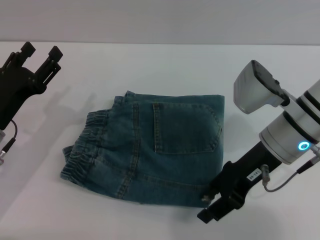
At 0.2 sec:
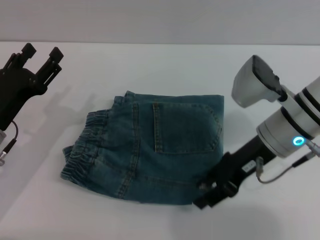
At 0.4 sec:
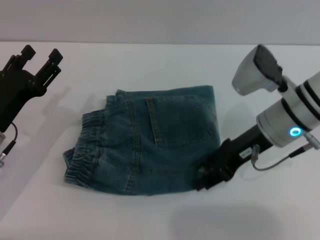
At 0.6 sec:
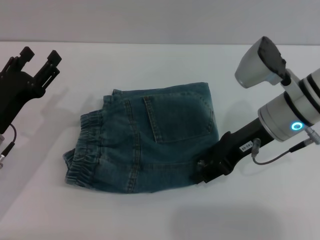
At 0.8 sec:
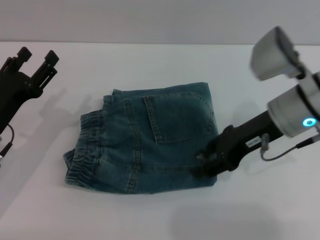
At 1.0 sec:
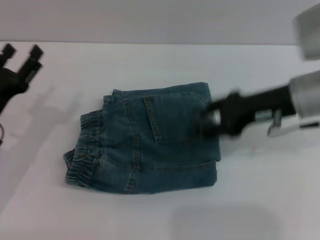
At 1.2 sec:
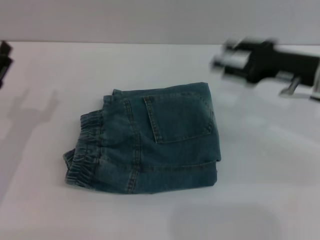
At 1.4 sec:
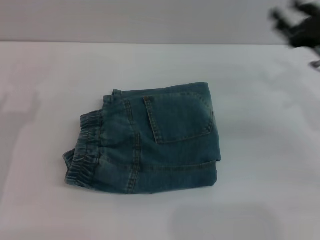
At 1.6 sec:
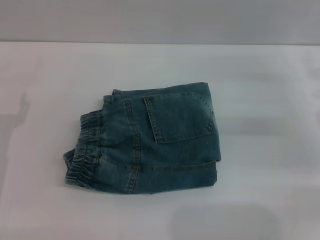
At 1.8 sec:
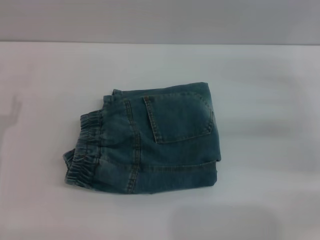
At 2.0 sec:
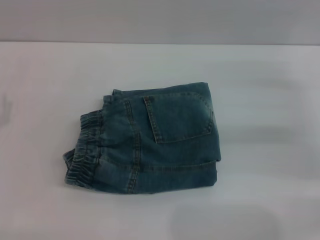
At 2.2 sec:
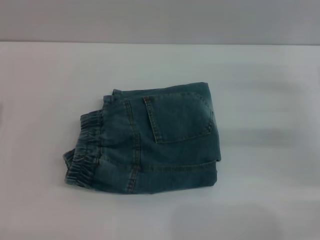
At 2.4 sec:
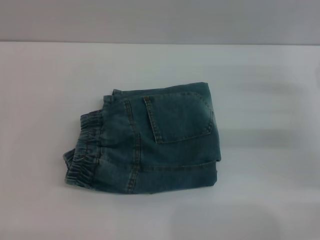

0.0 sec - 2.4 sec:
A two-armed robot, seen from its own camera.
0.0 sec - 1.2 sec: The right gripper heads to the right, covering approximately 10 cm.
1.2 sec - 2.4 sec: The right gripper is displaced to the right and downward by roughly 10 cm.
